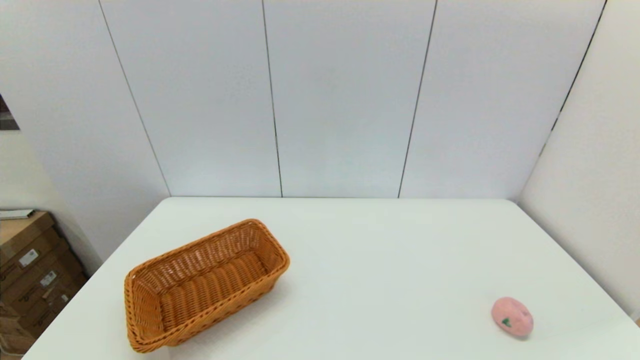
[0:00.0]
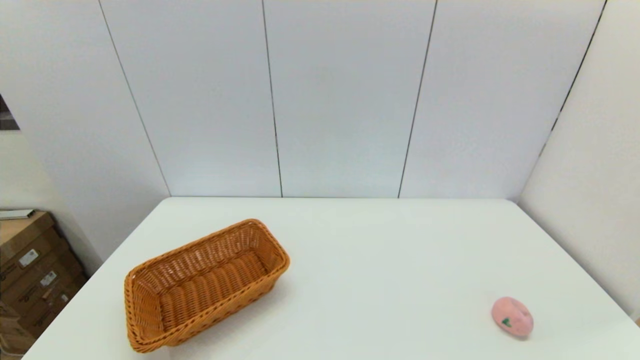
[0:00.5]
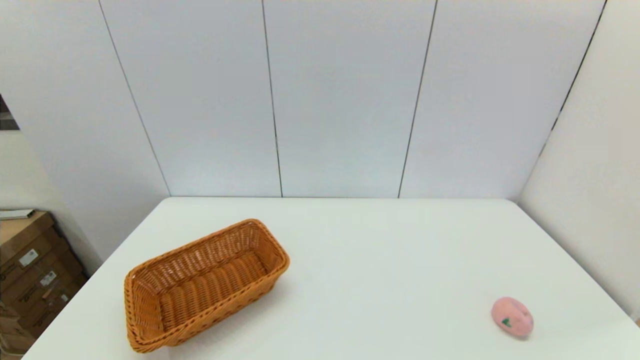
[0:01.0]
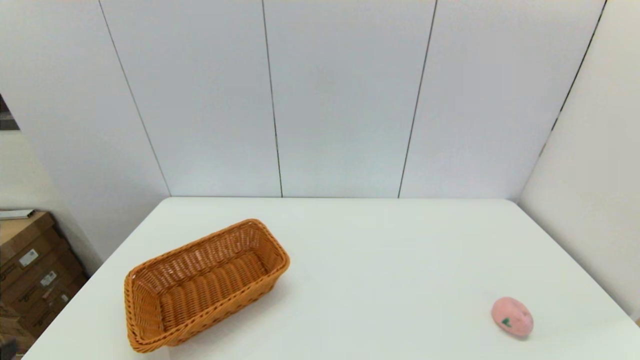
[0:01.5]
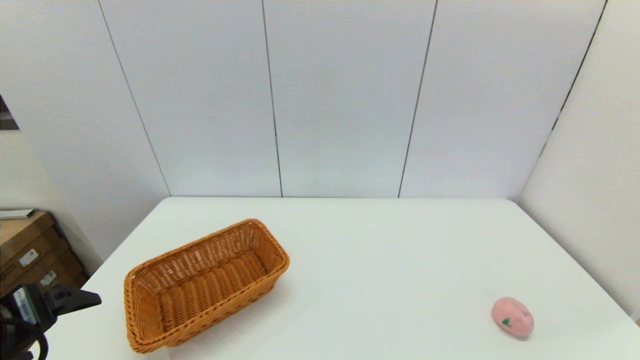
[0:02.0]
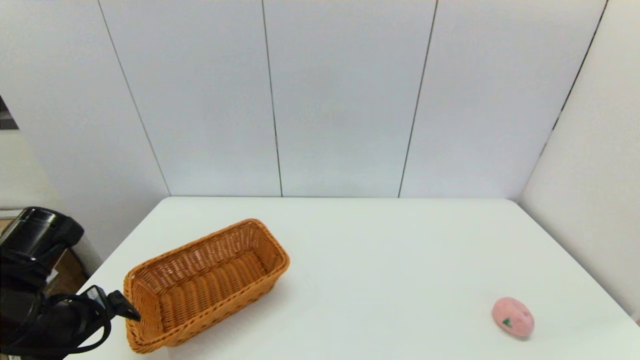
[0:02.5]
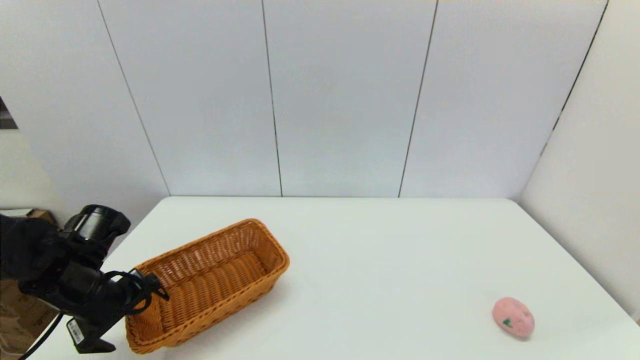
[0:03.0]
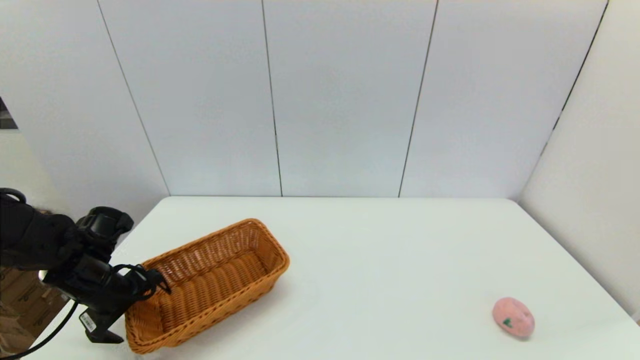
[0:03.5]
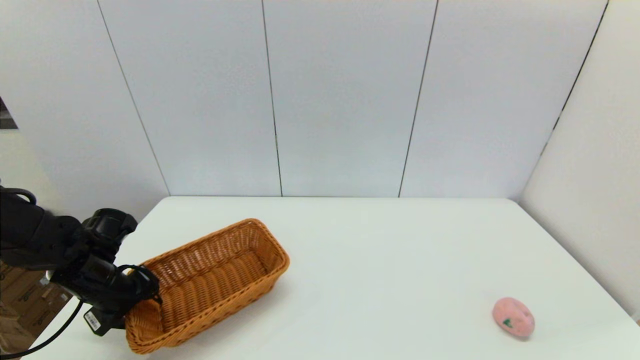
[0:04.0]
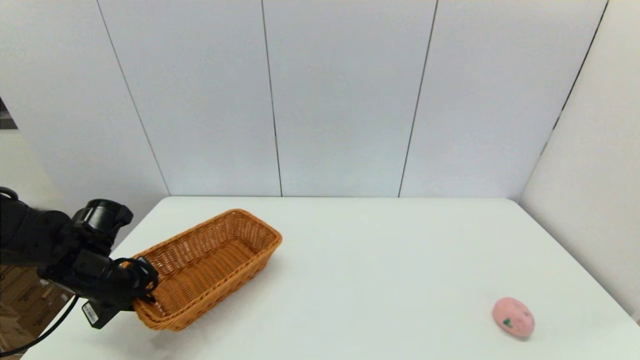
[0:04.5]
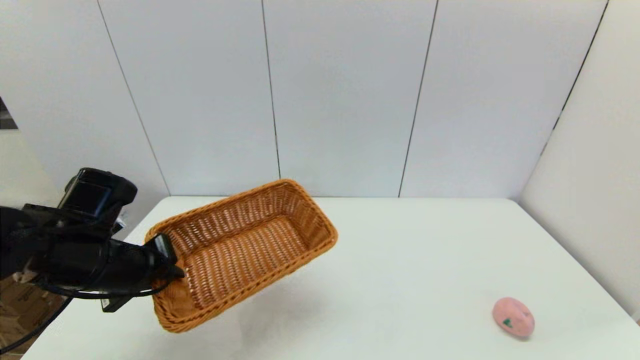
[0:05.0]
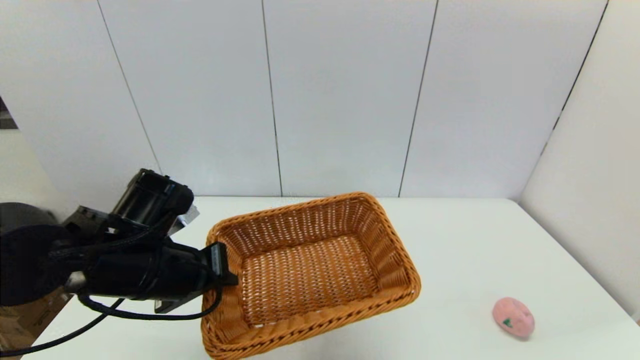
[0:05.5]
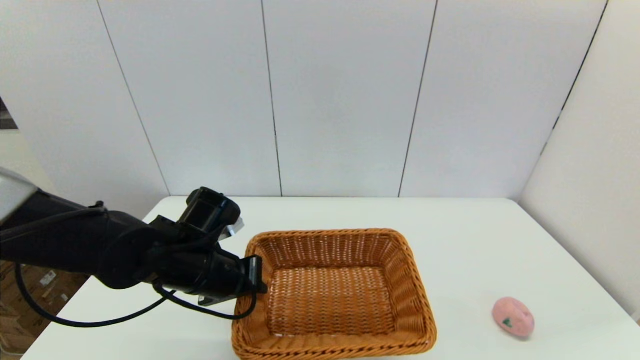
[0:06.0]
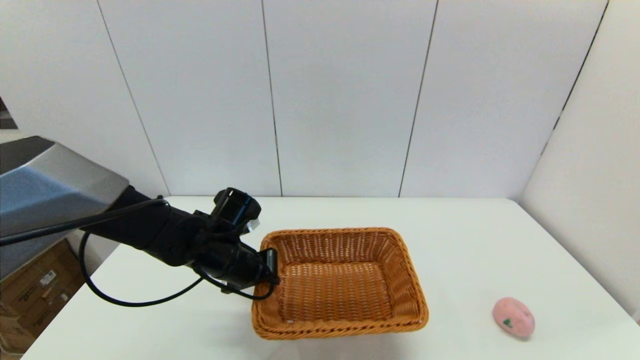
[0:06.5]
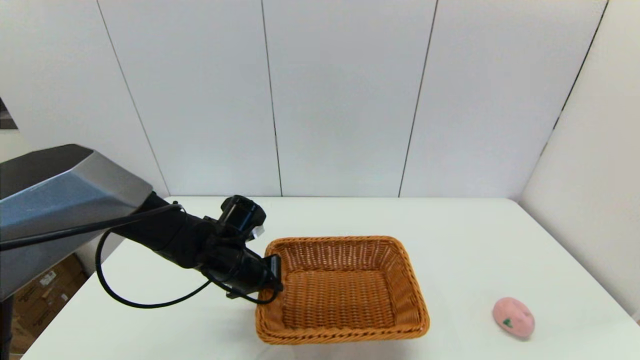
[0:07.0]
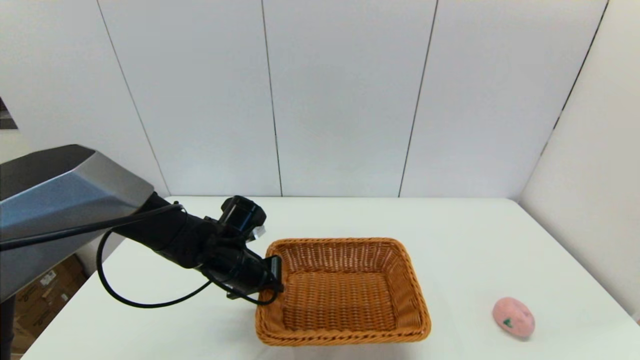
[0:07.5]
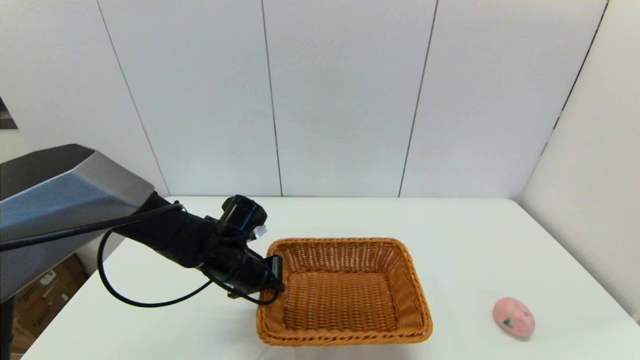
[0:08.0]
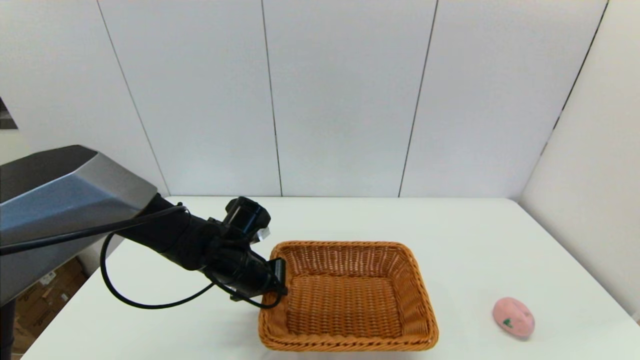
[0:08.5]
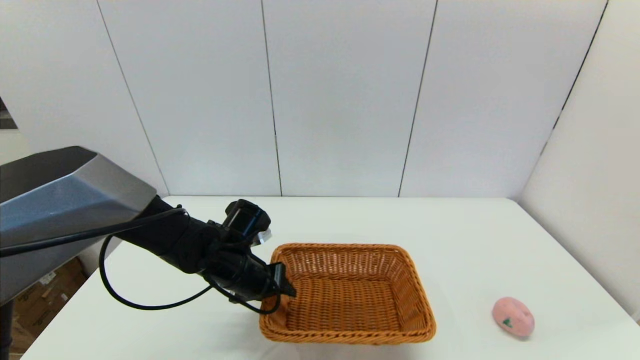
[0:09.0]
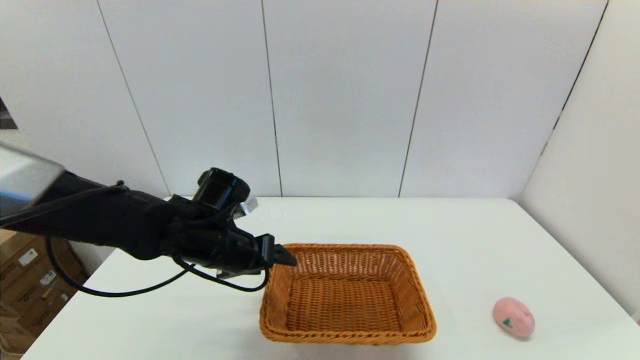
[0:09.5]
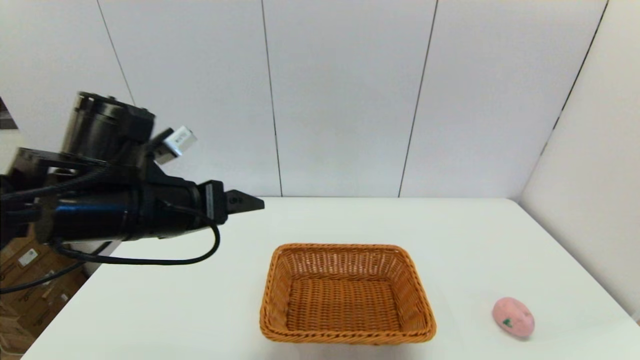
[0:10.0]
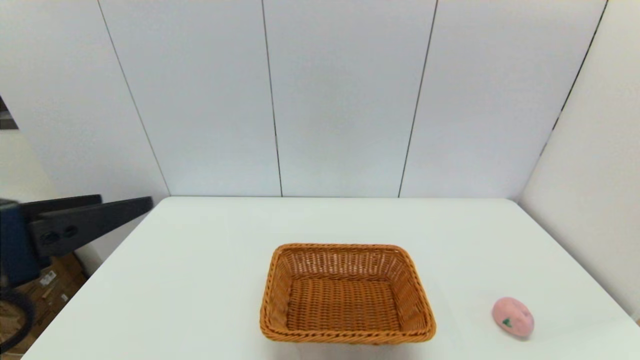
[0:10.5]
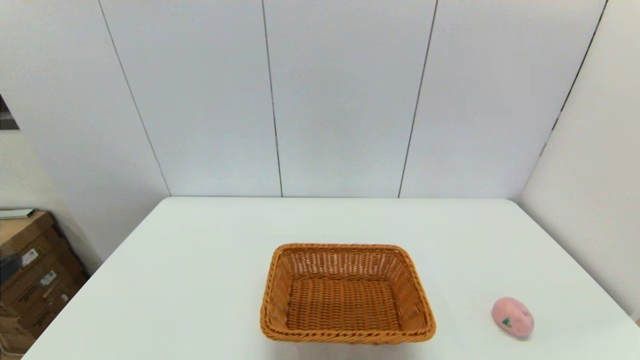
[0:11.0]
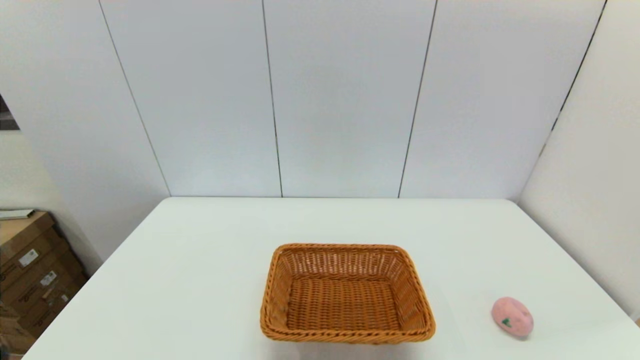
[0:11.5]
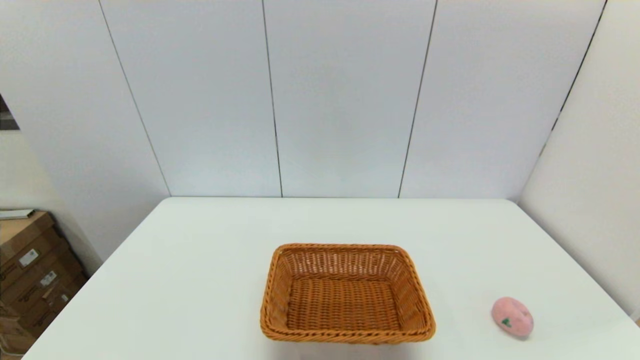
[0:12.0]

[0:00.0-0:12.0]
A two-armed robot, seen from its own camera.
Step, 0:00.0 to 0:04.0: Grasp the light basket with the left gripper.
Step, 0:04.5 to 0:09.0: Place the light basket on the middle of the table with the left gripper.
0:00.0 to 0:02.0: The left gripper is displaced forward and upward by about 15 cm.
0:02.0 to 0:04.0: The left gripper is displaced forward and downward by some 20 cm, and closes.
0:04.0 to 0:06.0: The left gripper goes approximately 15 cm to the right, and closes its fingers.
0:06.0 to 0:08.0: The left gripper ends up roughly 5 cm from where it was.
0:08.0 to 0:10.0: The left gripper shifts approximately 20 cm upward and backward, and opens its fingers.
0:10.0 to 0:12.0: The left gripper heads backward, to the left and downward, covering some 30 cm.

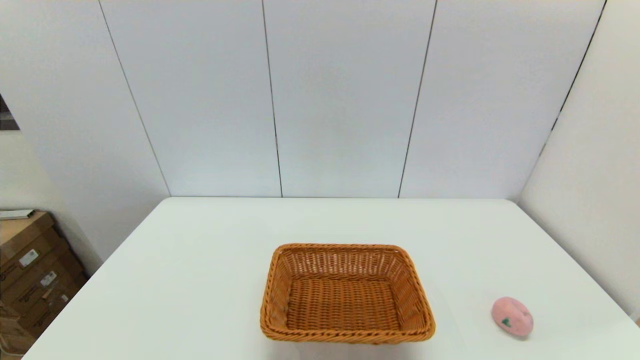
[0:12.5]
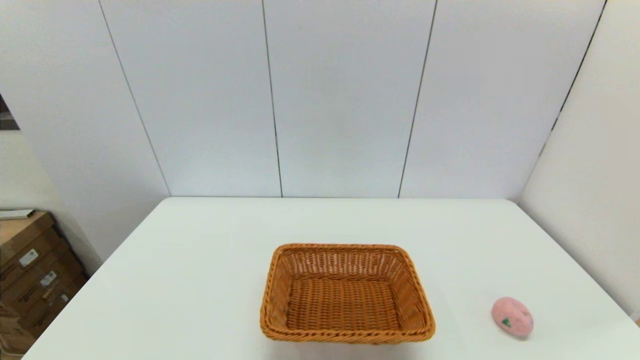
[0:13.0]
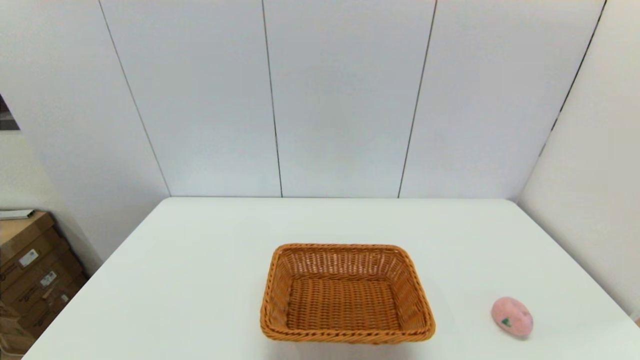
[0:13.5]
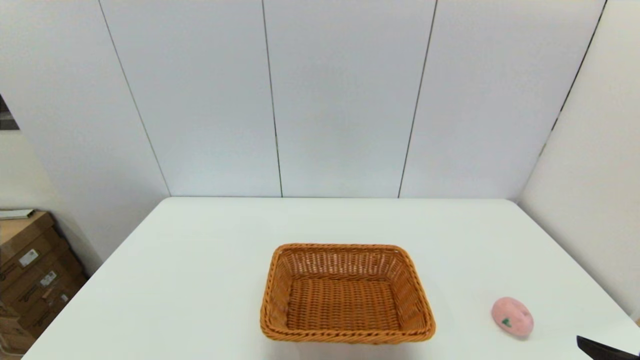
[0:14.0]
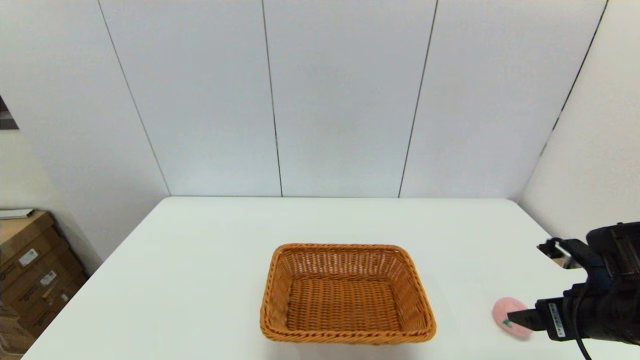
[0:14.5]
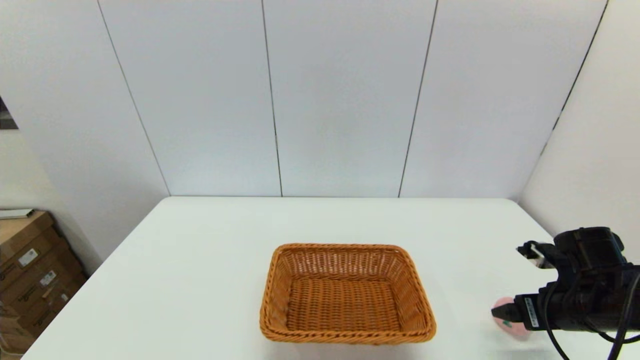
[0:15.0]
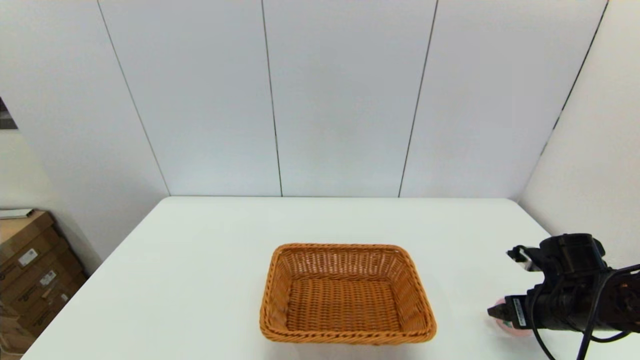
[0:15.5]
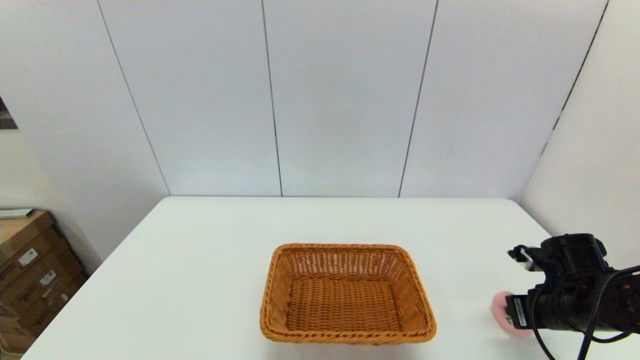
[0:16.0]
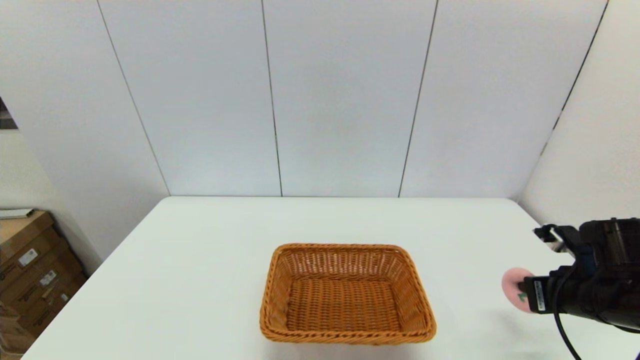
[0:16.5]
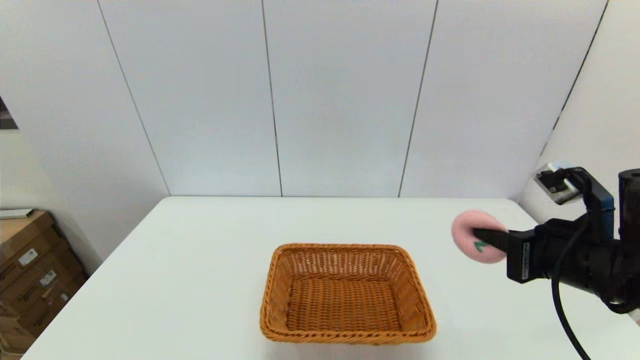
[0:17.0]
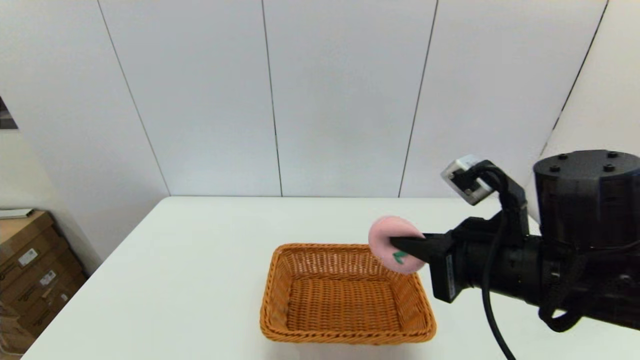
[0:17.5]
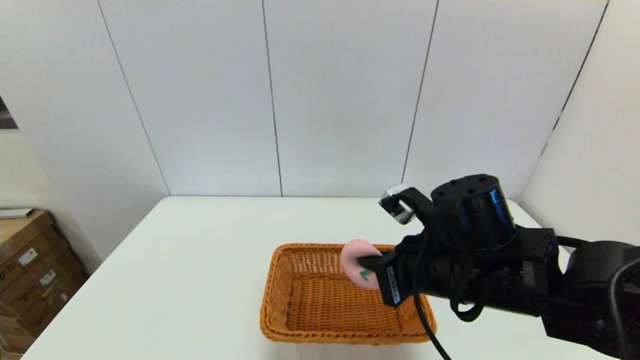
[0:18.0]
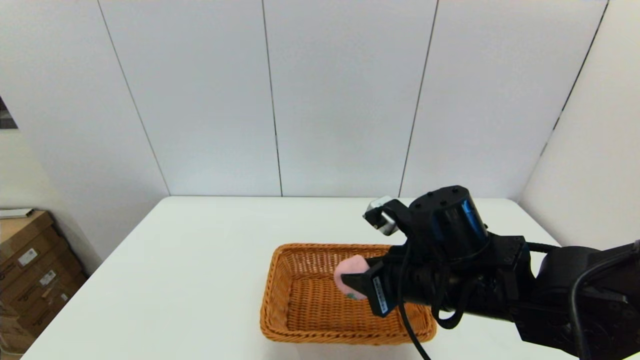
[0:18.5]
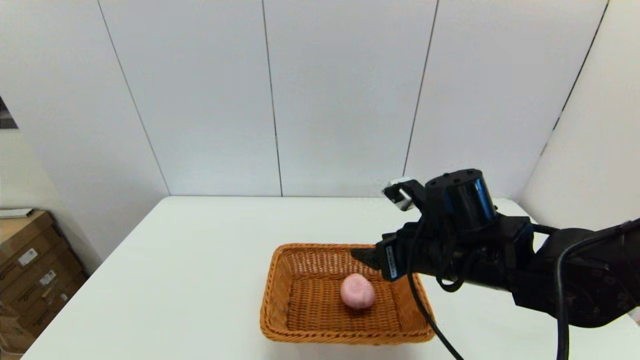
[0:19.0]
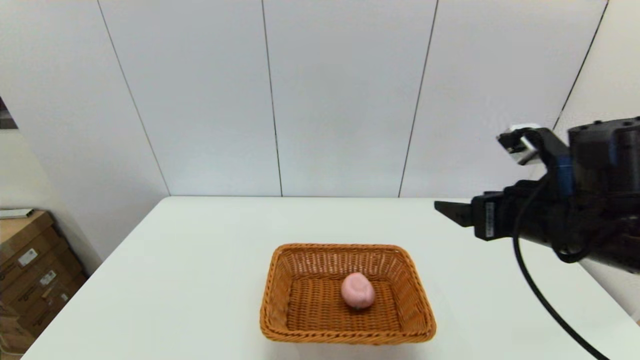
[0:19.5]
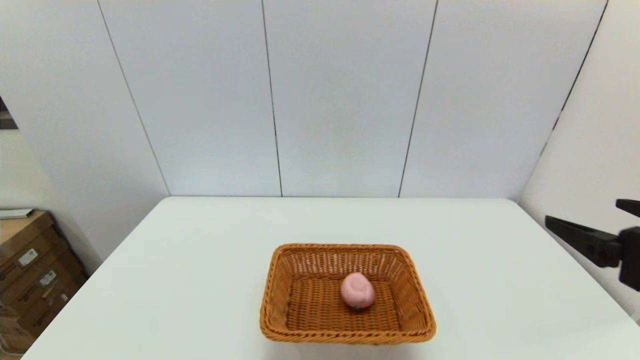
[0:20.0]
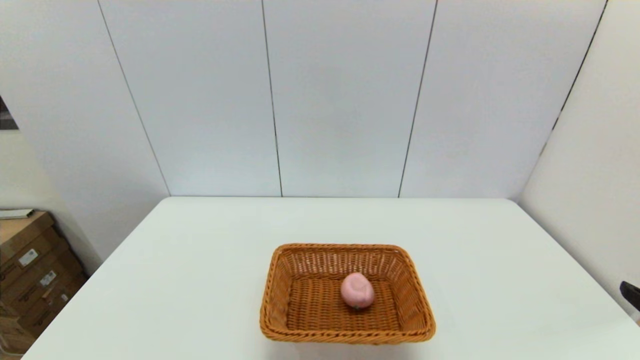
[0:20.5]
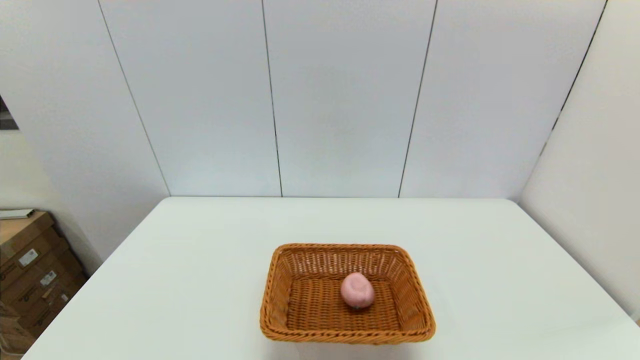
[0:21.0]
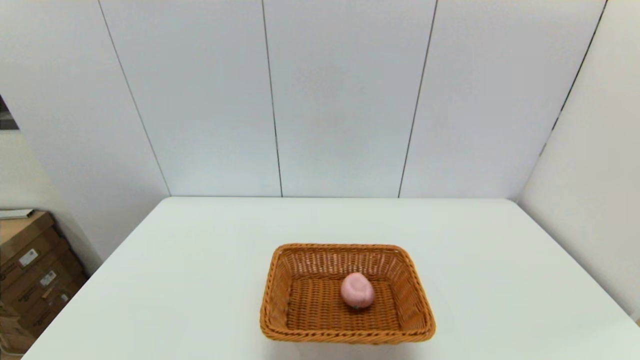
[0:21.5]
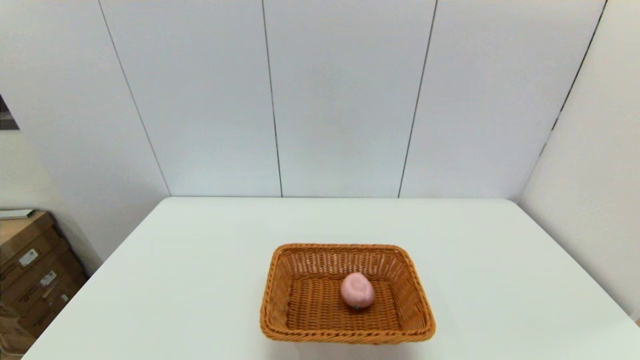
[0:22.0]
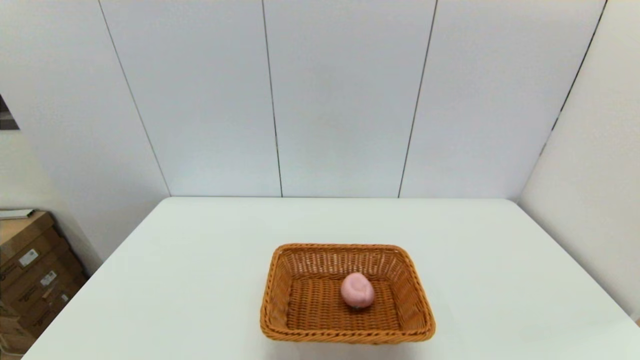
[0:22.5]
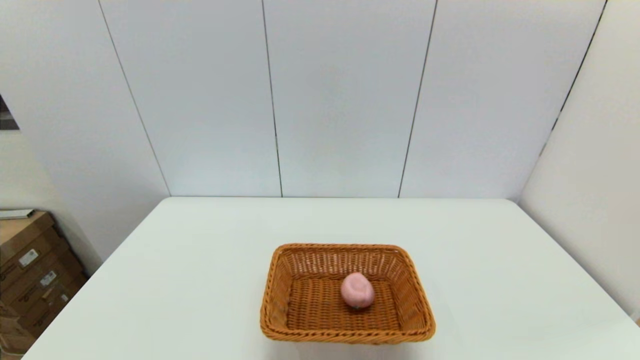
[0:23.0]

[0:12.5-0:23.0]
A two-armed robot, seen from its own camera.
Step, 0:12.5 to 0:16.0: Grasp the peach with the right gripper.
Step, 0:16.5 to 0:19.0: Place the peach into the light basket with the right gripper.
0:12.5 to 0:14.5: The right gripper shifts roughly 20 cm forward.
0:14.5 to 0:16.5: The right gripper closes.
0:16.5 to 0:19.0: The right gripper heads to the left, covering about 20 cm, and opens up.
0:19.0 to 0:21.0: The right gripper goes approximately 30 cm backward and to the right.
